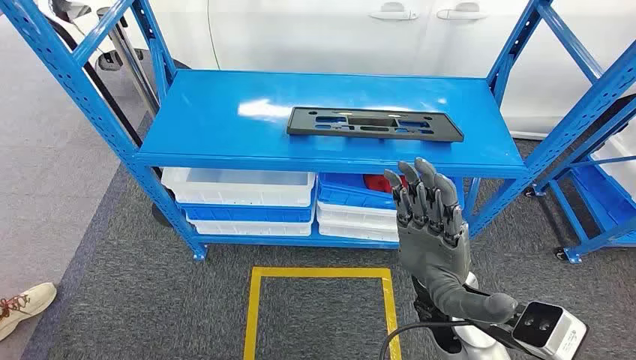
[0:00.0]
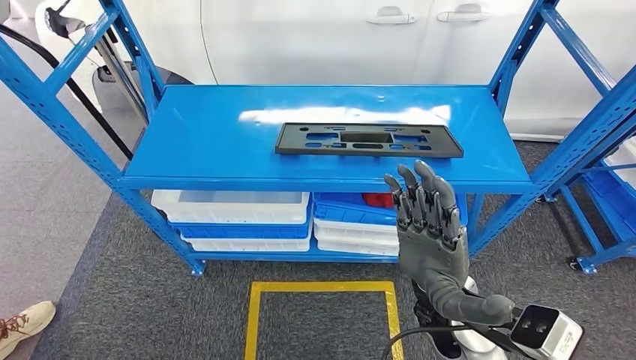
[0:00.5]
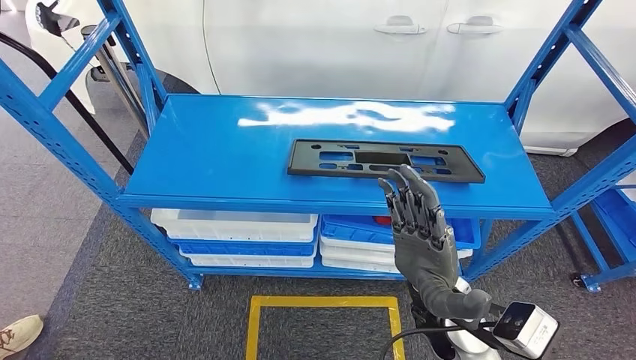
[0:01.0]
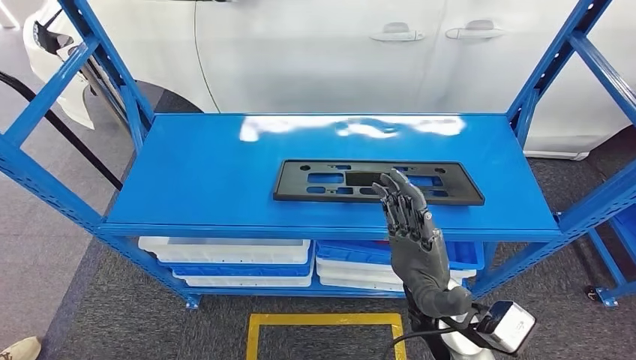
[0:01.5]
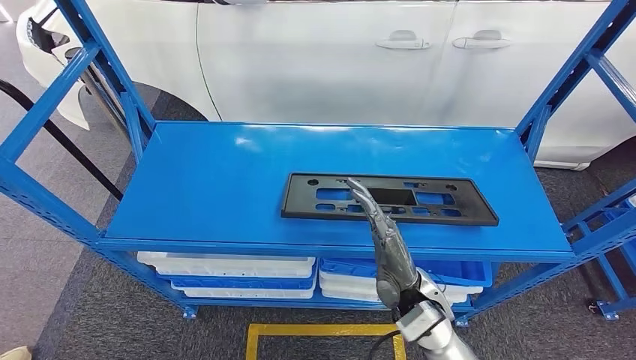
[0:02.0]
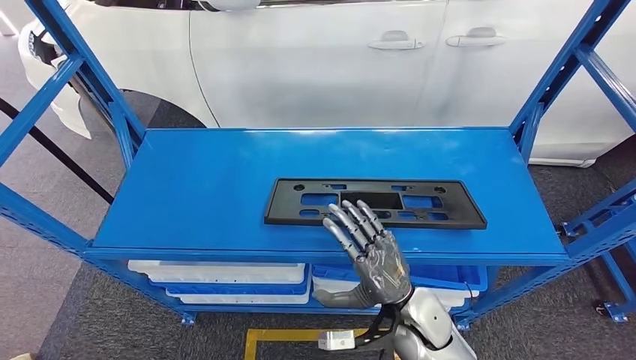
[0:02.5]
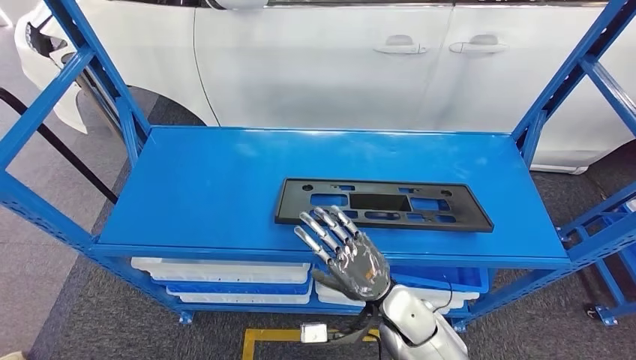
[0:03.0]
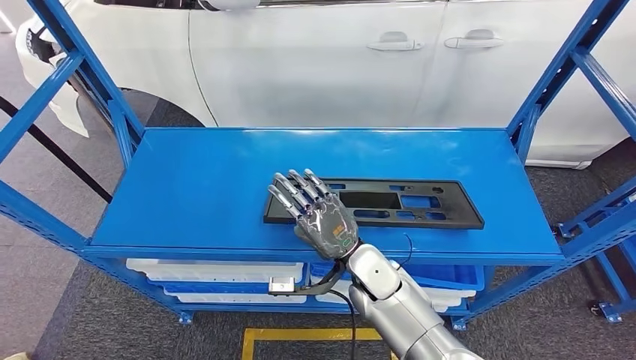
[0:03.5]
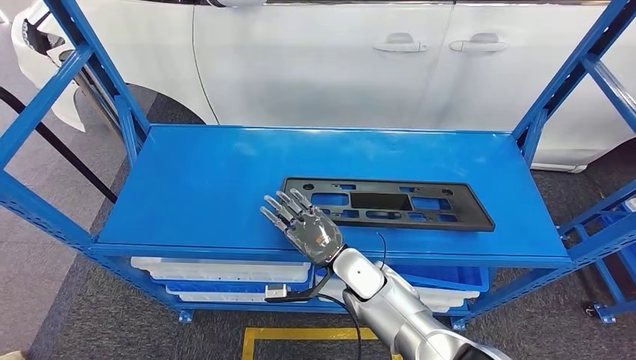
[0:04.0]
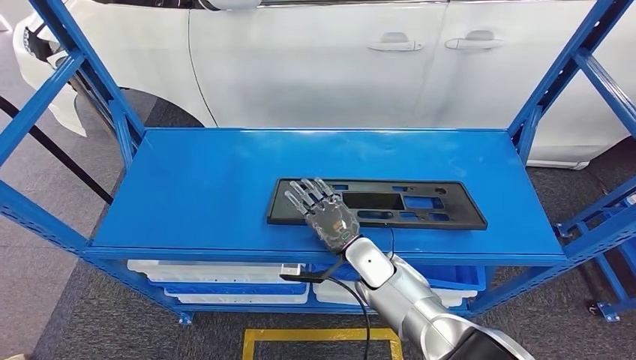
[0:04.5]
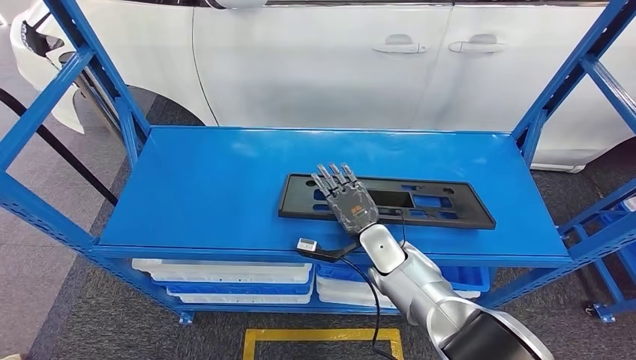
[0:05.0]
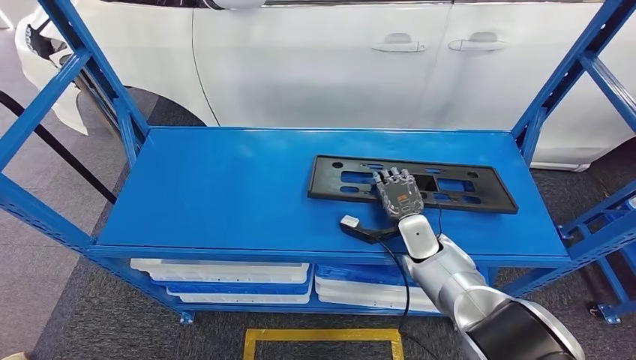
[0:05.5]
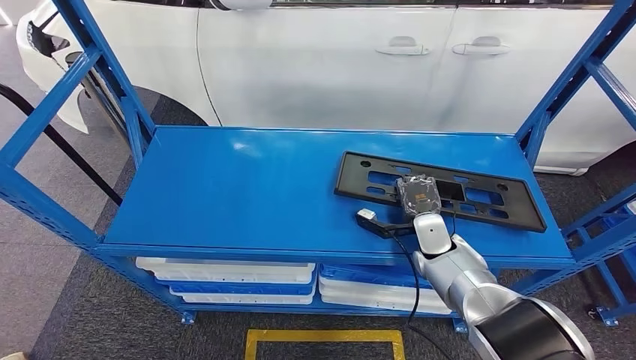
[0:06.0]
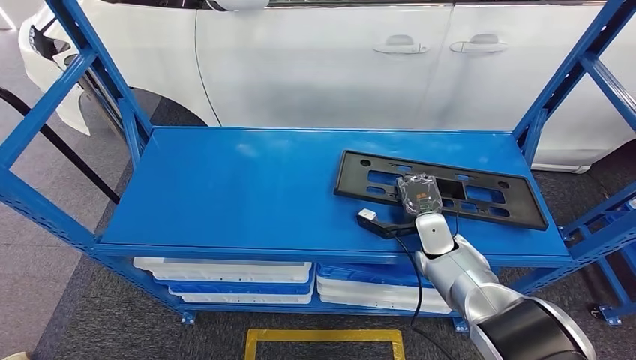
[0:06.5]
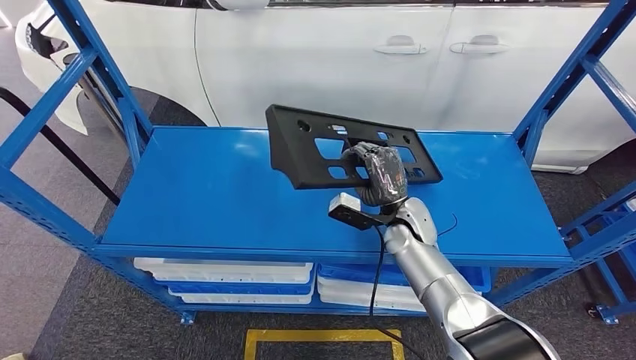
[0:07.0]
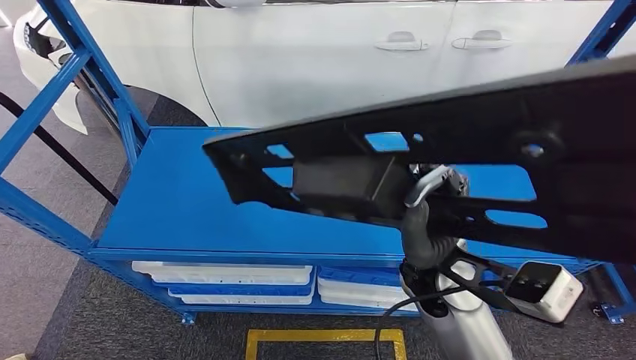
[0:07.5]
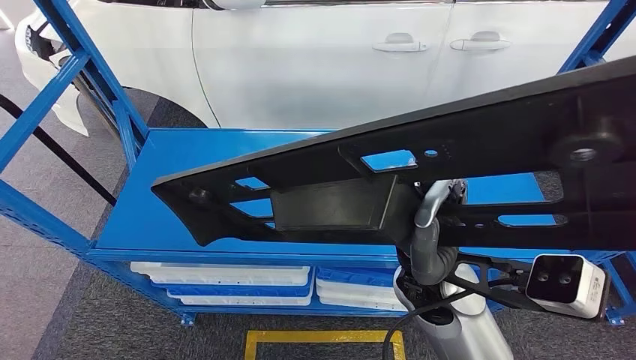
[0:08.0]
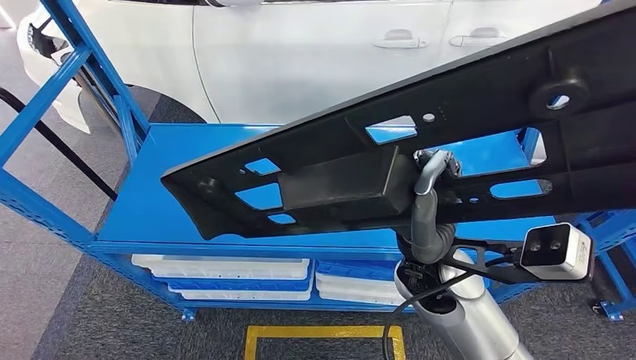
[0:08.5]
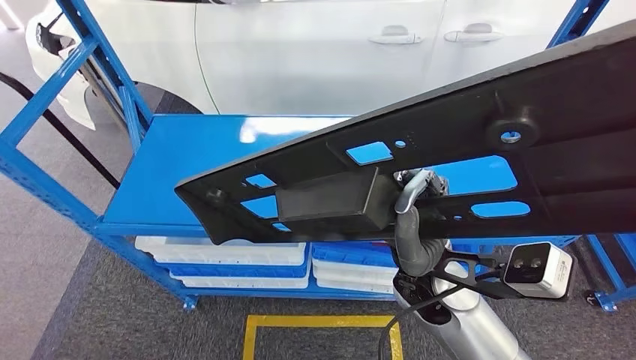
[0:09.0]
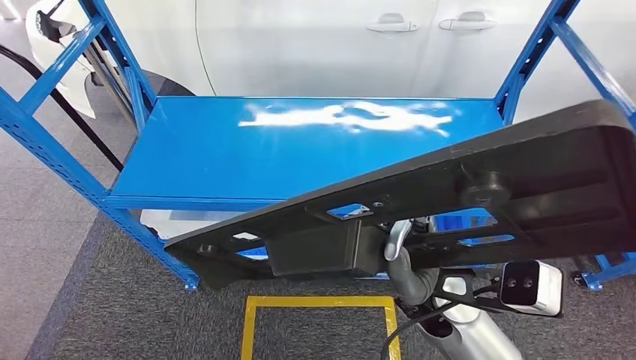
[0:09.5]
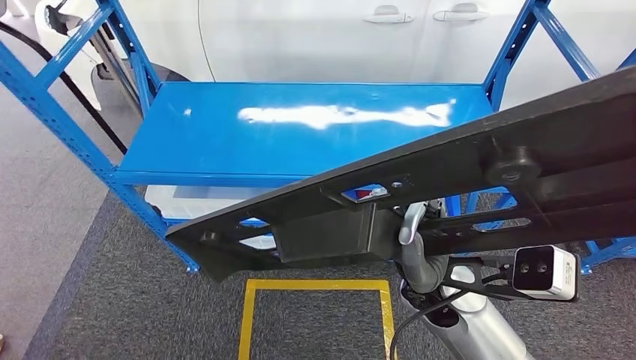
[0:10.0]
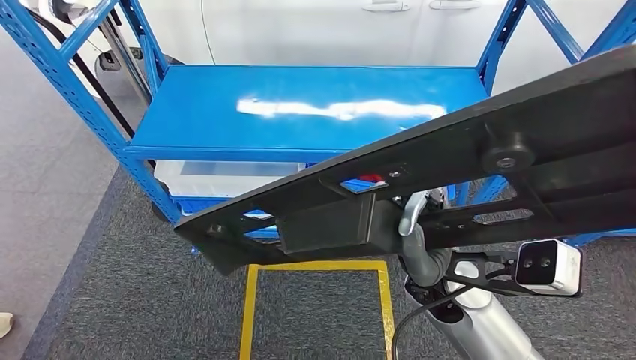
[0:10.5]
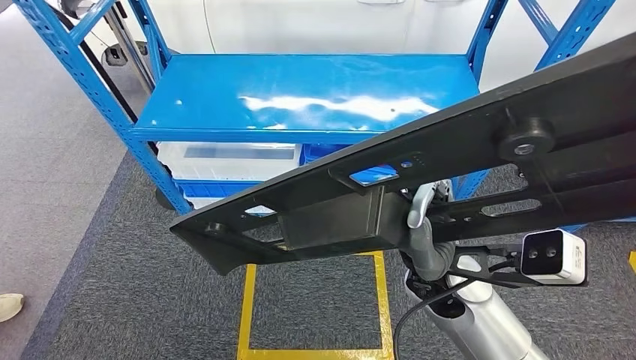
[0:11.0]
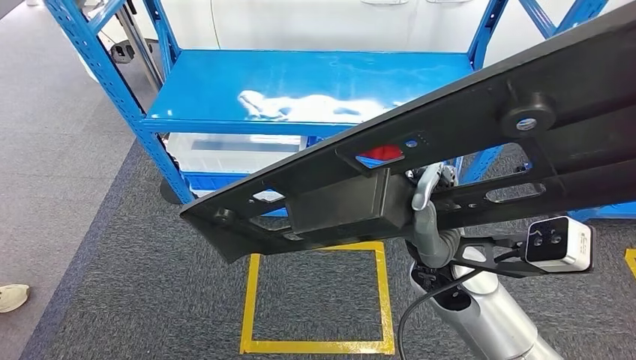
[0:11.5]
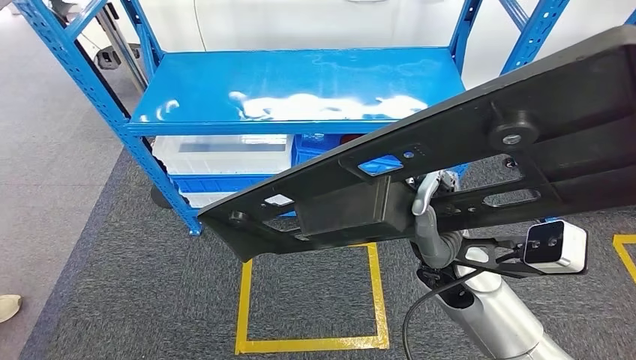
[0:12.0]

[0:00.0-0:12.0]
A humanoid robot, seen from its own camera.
Step, 0:00.0 to 0:08.5: Pick up the large material from the shelf.

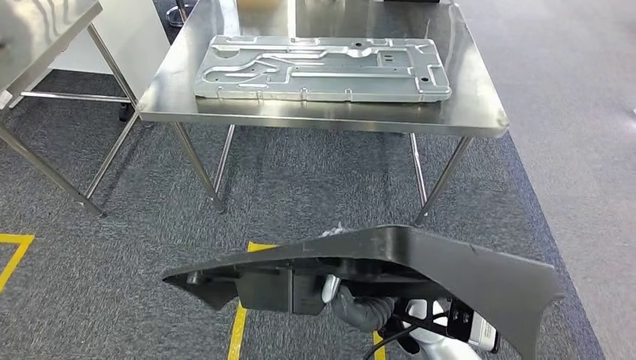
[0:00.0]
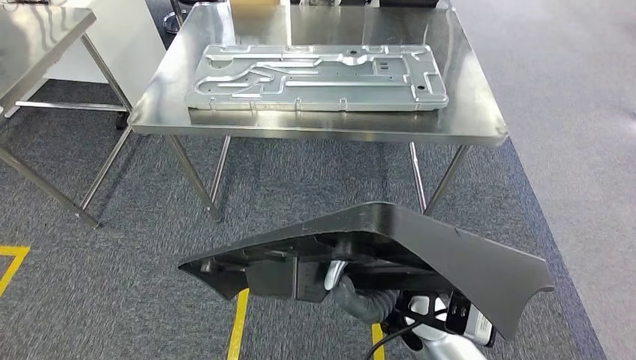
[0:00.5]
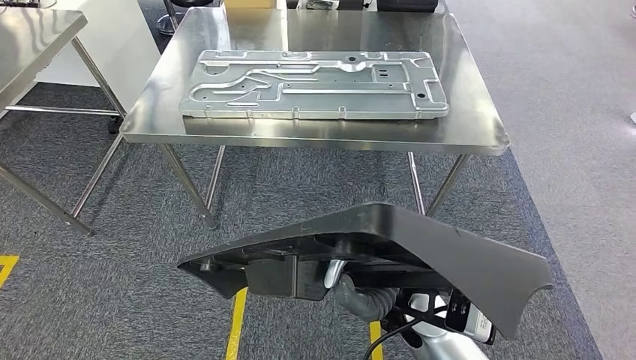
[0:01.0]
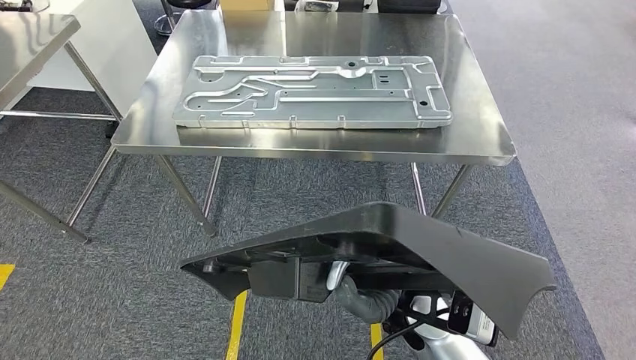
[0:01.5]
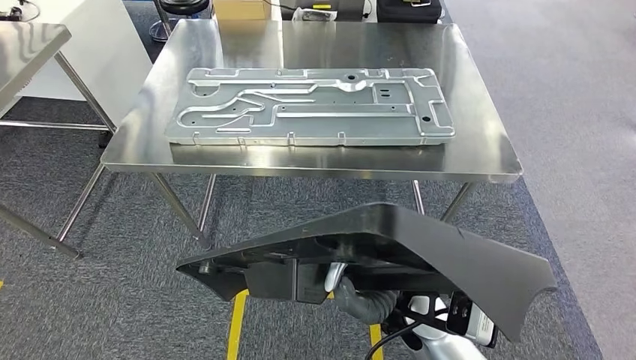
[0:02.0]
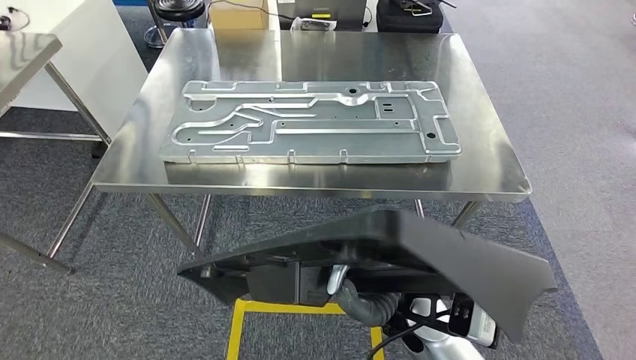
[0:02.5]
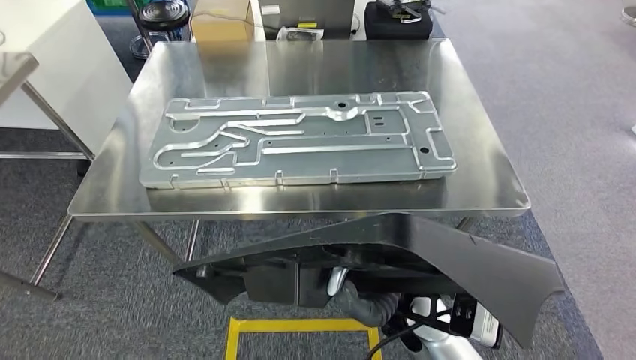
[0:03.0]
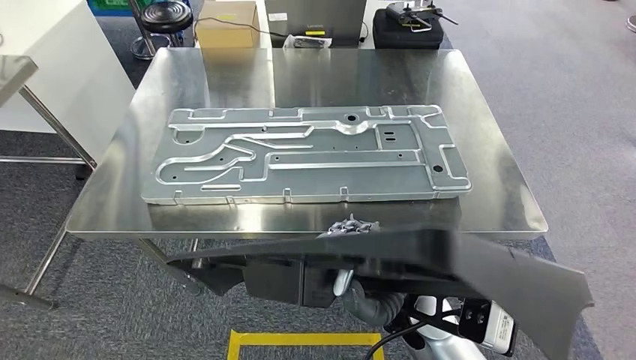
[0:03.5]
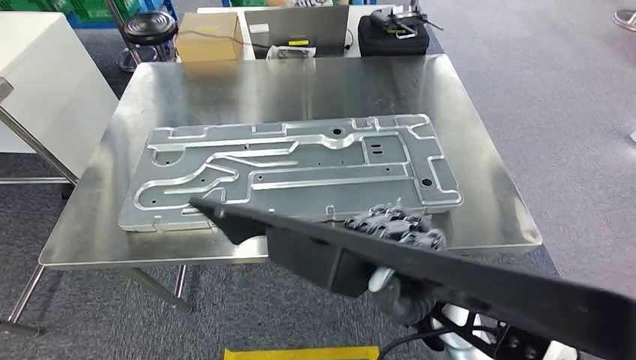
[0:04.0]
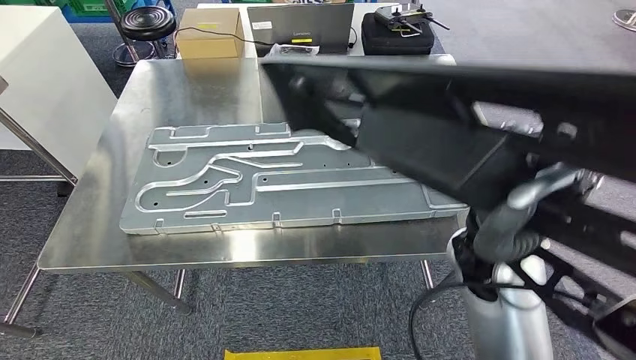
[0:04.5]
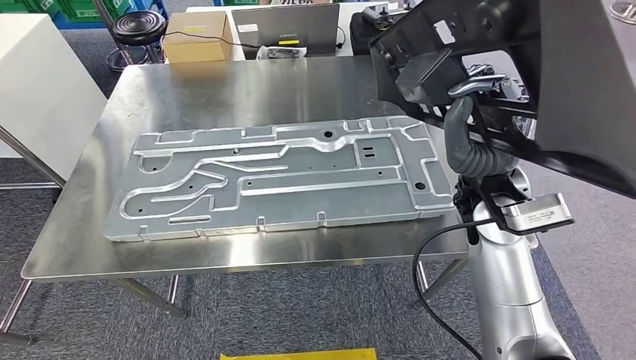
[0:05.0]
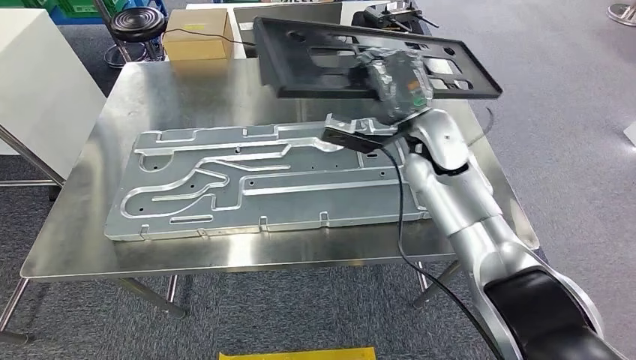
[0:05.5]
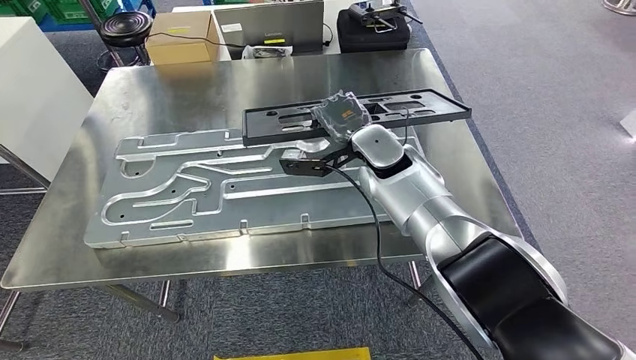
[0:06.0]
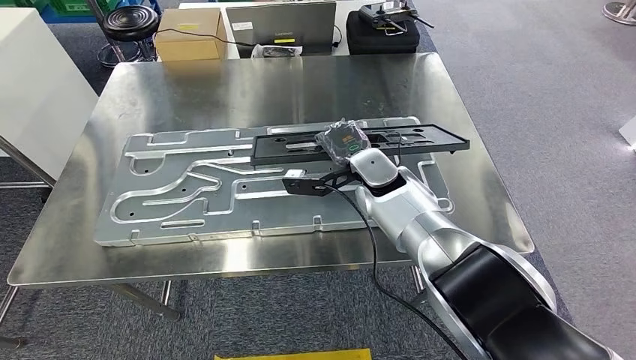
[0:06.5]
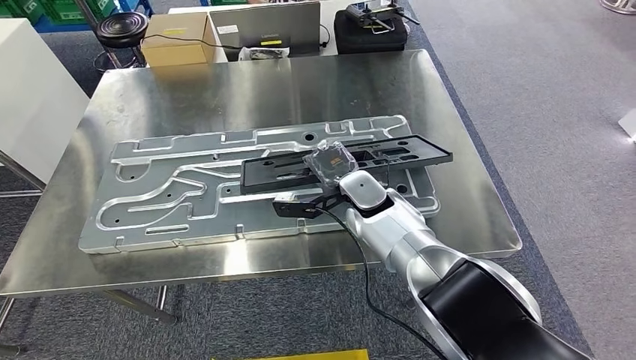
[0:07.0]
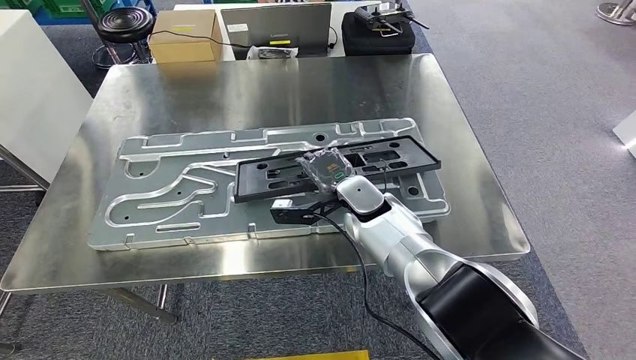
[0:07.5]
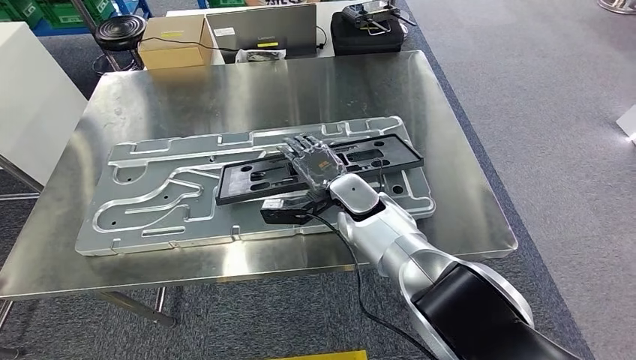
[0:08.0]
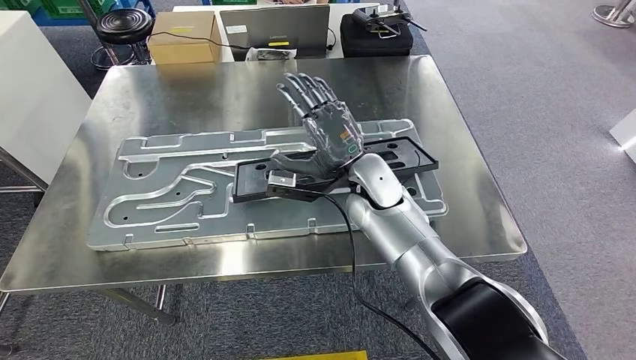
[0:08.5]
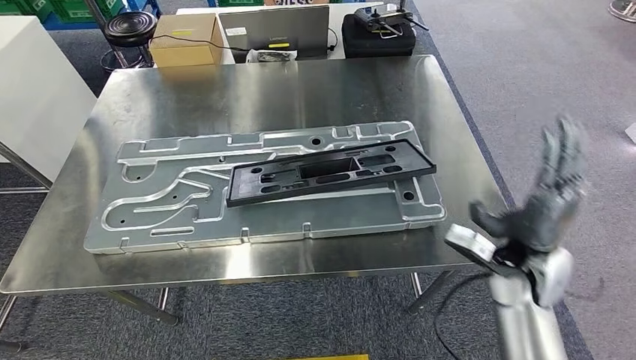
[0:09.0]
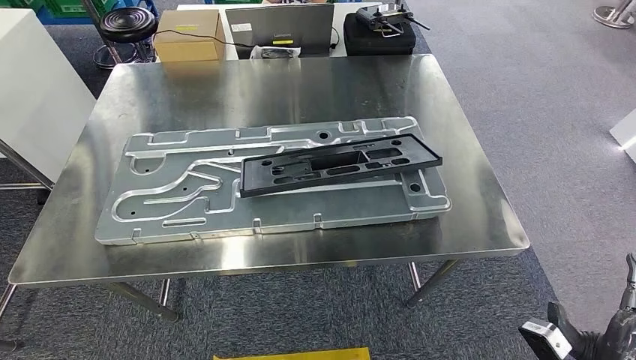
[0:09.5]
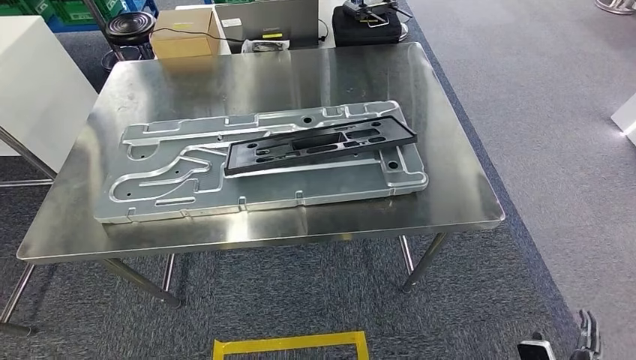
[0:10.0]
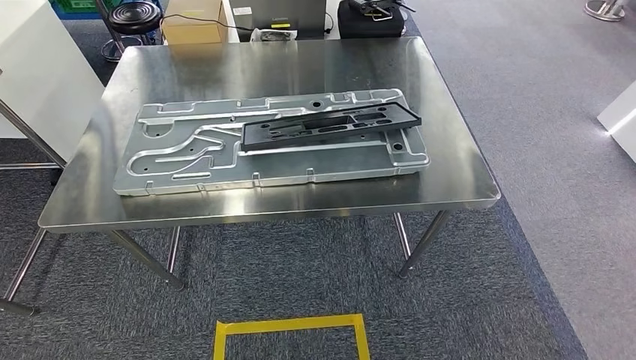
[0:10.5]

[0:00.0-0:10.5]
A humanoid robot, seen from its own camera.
Step, 0:00.0 to 0:05.5: Move the large material to the workbench.
Step, 0:06.0 to 0:09.5: Insert the large material into the corresponding slot on the workbench.
